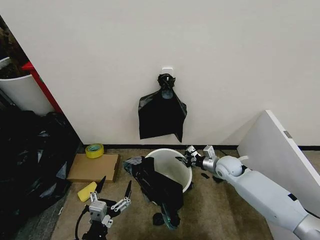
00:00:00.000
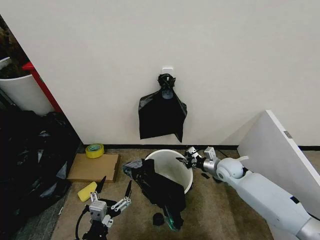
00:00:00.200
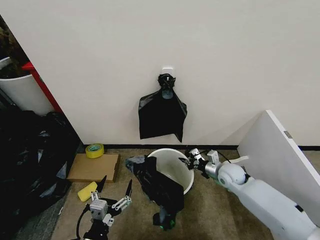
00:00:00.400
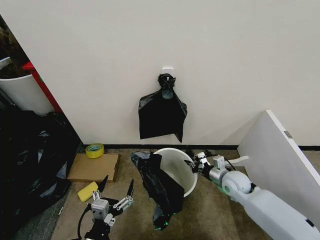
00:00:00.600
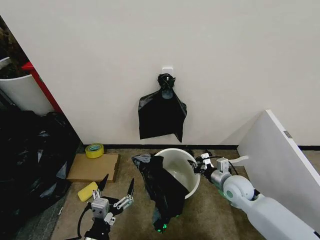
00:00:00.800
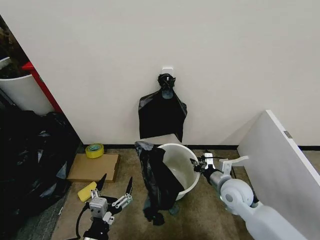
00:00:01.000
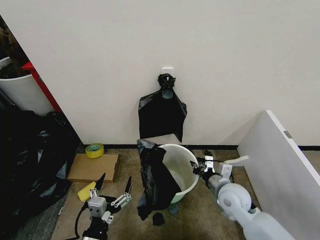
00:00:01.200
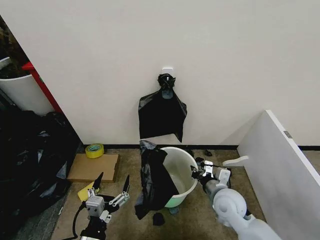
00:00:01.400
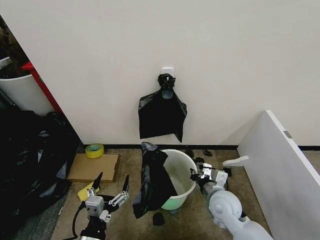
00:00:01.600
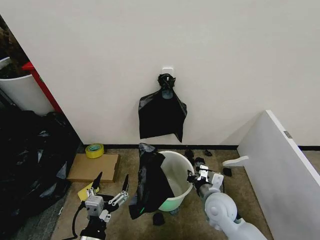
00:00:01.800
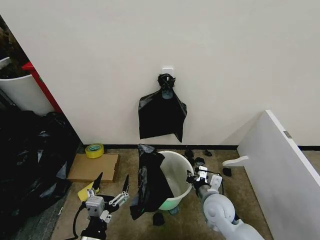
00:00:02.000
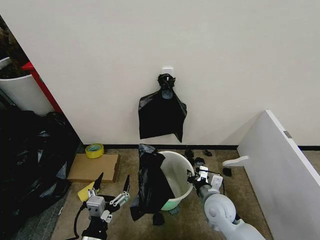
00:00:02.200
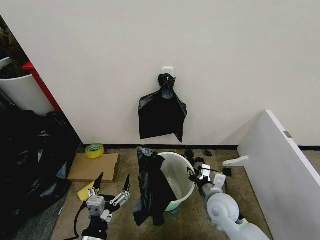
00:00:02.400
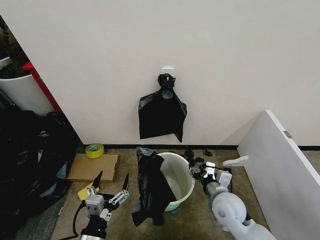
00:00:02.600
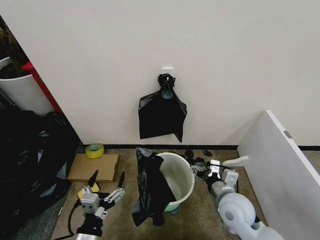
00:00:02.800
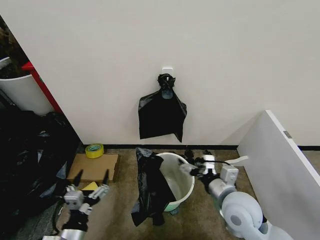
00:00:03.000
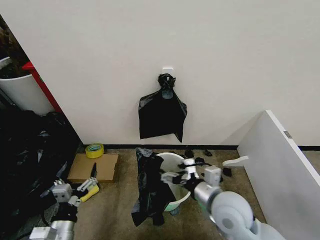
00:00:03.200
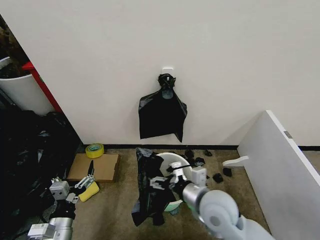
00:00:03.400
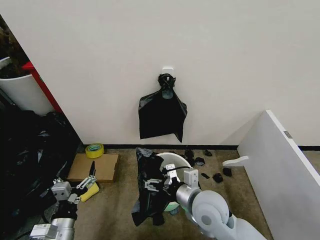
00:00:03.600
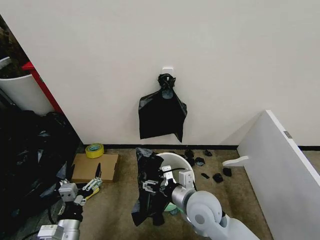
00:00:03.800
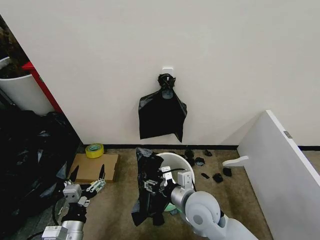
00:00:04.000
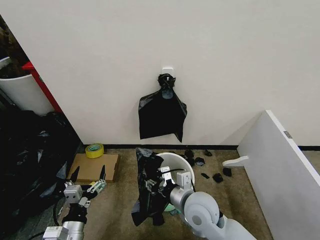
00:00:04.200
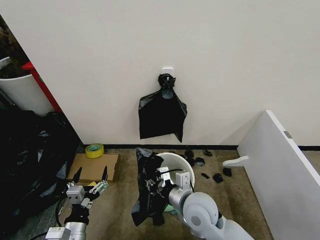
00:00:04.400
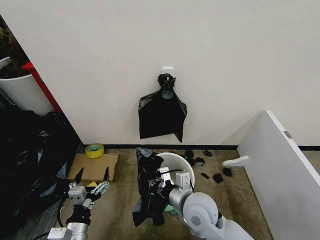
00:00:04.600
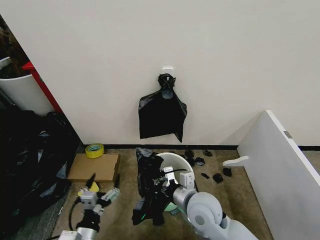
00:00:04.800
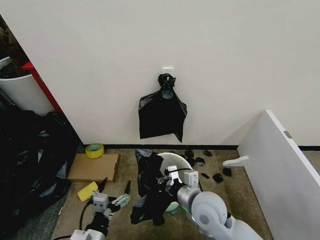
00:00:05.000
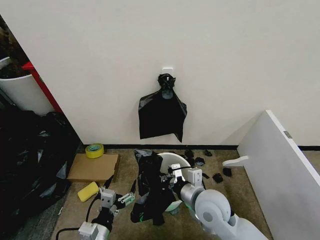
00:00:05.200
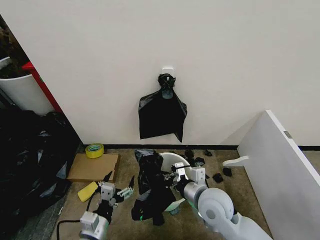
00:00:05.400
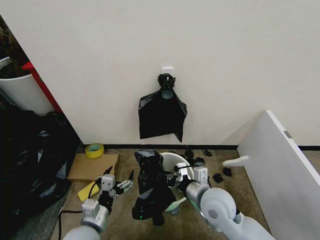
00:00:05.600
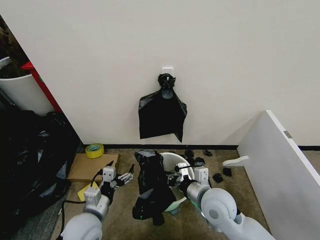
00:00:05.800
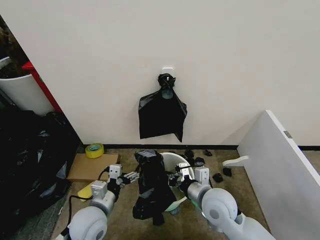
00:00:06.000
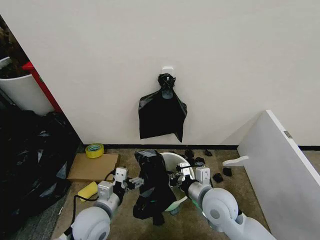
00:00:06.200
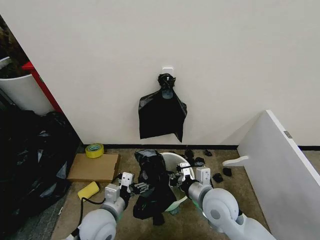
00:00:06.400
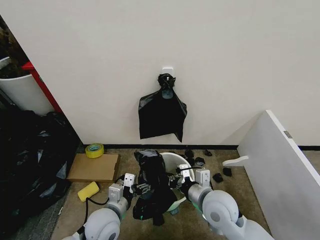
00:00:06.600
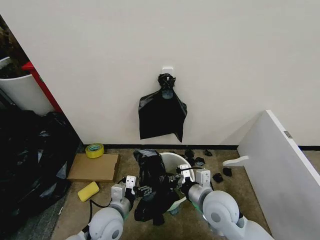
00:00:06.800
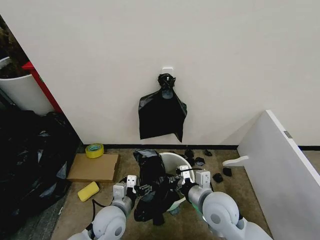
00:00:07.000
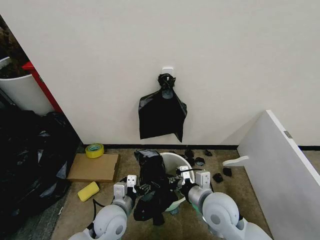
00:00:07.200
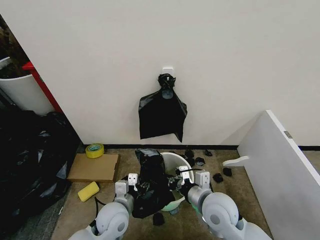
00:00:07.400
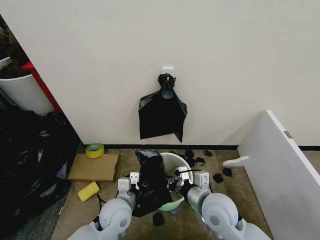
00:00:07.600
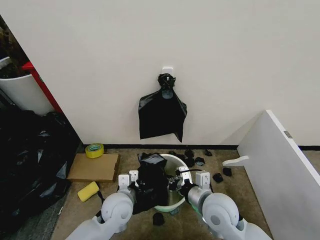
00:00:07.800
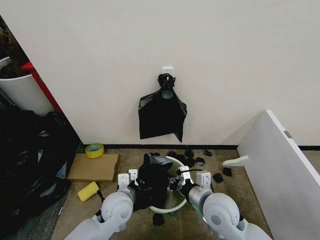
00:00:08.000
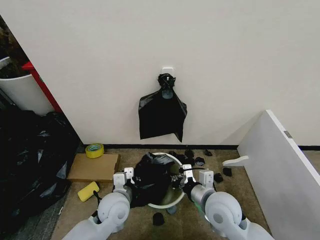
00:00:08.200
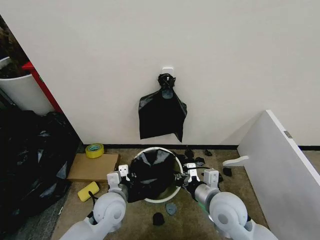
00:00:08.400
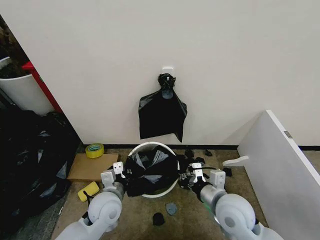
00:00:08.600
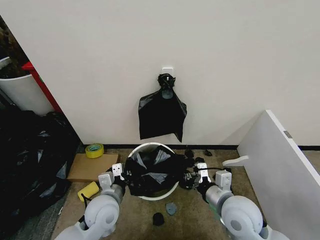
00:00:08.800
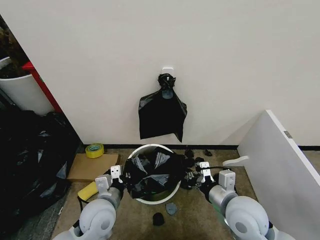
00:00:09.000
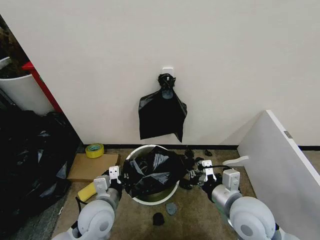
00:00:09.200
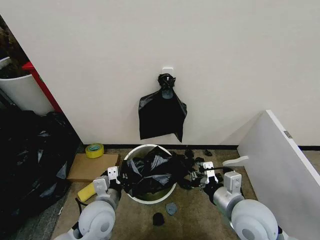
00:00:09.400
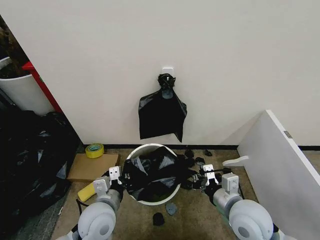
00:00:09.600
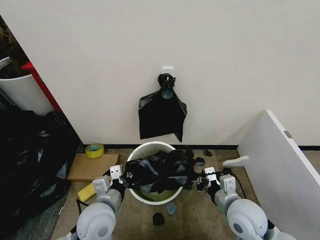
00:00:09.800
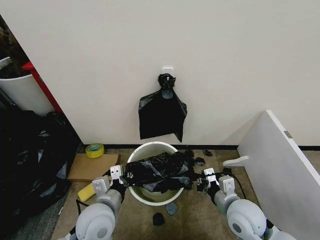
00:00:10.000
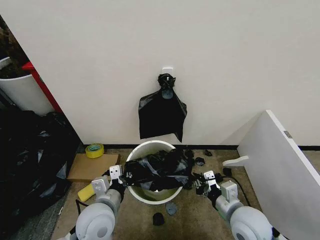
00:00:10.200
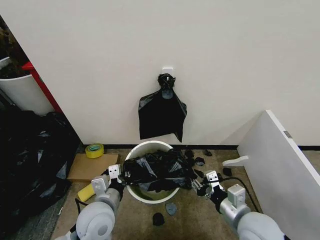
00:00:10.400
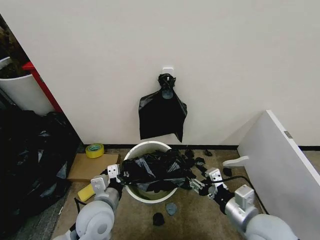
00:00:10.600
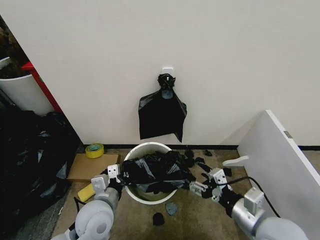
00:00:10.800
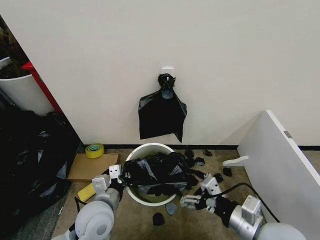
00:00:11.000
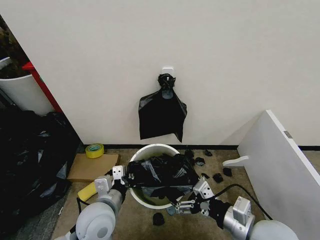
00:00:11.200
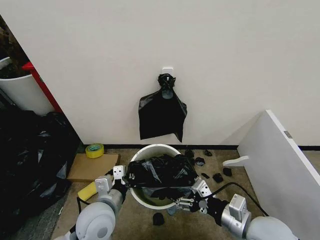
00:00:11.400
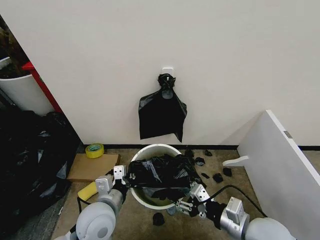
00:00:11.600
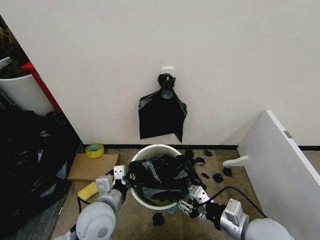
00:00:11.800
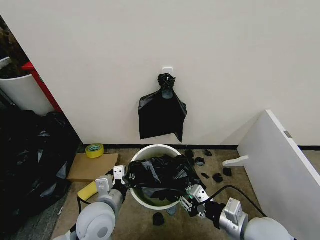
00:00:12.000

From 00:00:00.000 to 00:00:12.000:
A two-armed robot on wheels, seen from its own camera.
Task of the whole recording: Place the garbage bag over the trash bin.
From 00:00:00.000 to 00:00:01.600: The right gripper moves backward and to the left, approximately 15 cm.
From 00:00:01.600 to 00:00:03.000: The right gripper is displaced upward by roughly 10 cm, and opens up.
From 00:00:03.000 to 00:00:04.400: The right gripper is displaced to the left by some 10 cm, and closes.
From 00:00:04.400 to 00:00:06.000: The left gripper heads forward, covering approximately 10 cm. The right gripper heads to the right, covering approximately 5 cm.
From 00:00:06.000 to 00:00:07.600: The left gripper moves to the right, some 5 cm, and closes up.
From 00:00:07.600 to 00:00:09.000: The left gripper ends up roughly 5 cm from where it was, while the right gripper shifts approximately 5 cm to the right.
From 00:00:09.000 to 00:00:10.400: The right gripper changes place by about 5 cm.
From 00:00:10.400 to 00:00:12.000: The right gripper opens, then closes again.

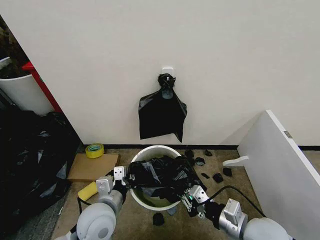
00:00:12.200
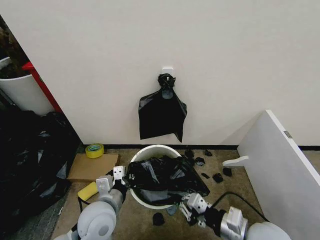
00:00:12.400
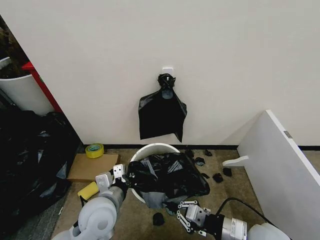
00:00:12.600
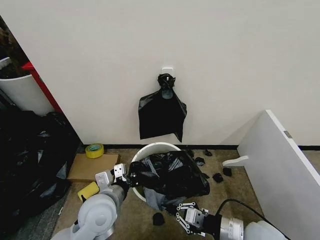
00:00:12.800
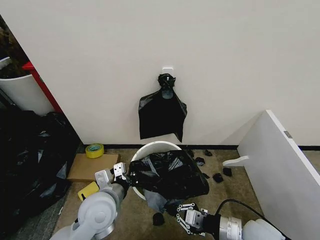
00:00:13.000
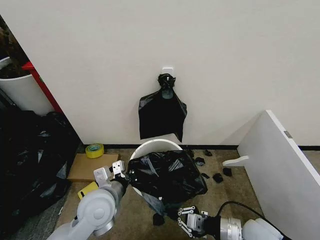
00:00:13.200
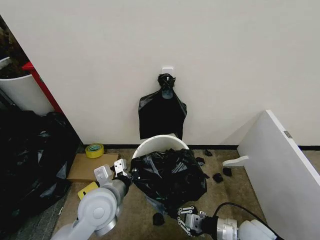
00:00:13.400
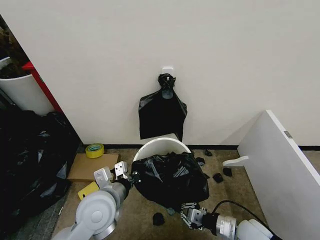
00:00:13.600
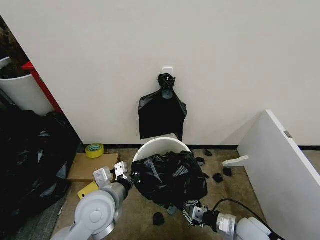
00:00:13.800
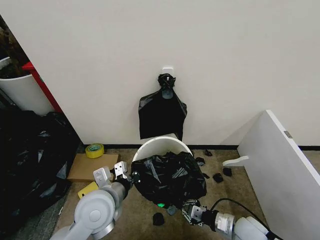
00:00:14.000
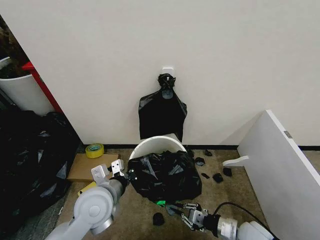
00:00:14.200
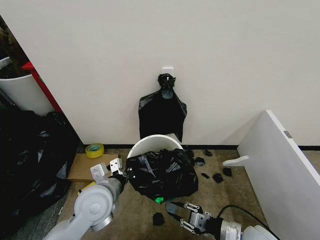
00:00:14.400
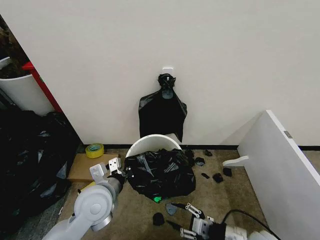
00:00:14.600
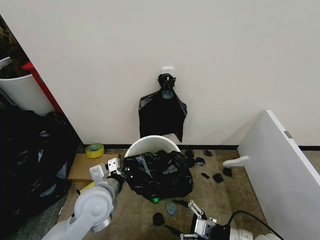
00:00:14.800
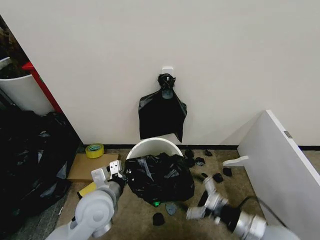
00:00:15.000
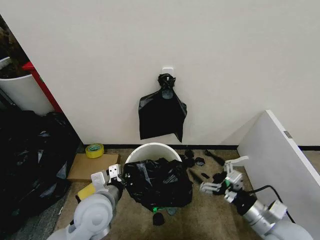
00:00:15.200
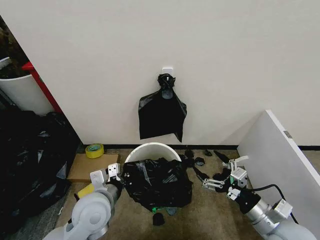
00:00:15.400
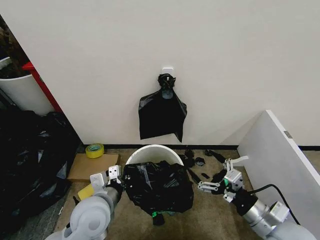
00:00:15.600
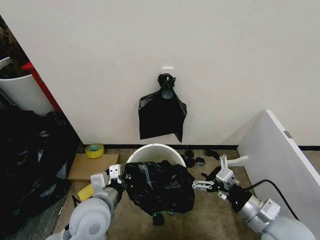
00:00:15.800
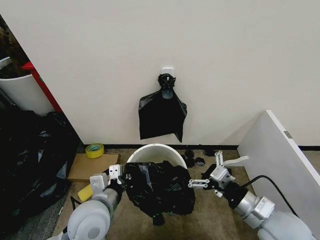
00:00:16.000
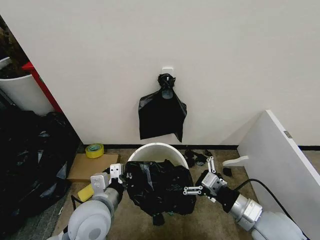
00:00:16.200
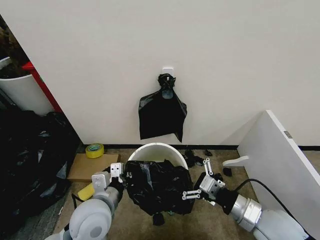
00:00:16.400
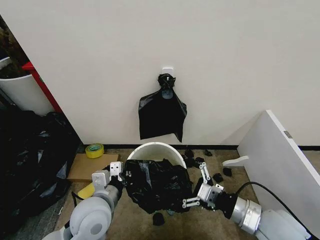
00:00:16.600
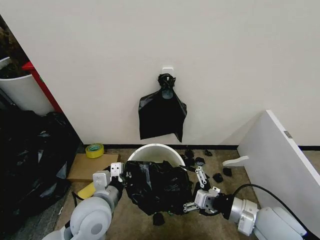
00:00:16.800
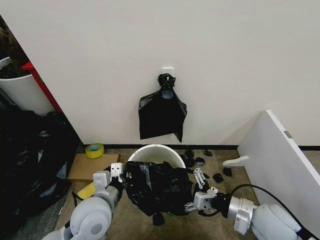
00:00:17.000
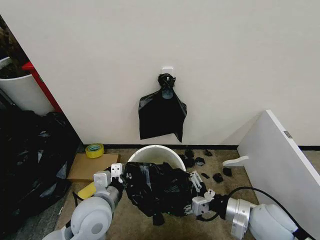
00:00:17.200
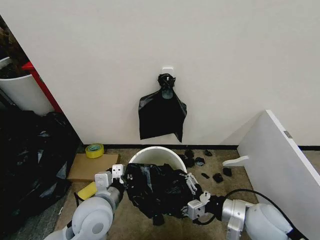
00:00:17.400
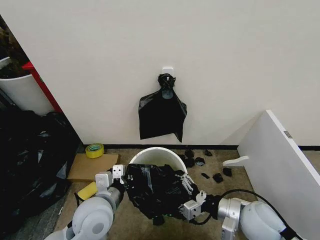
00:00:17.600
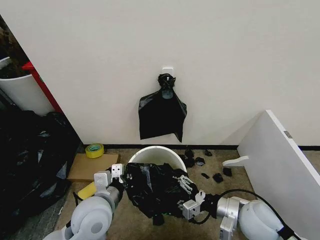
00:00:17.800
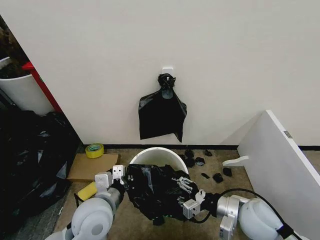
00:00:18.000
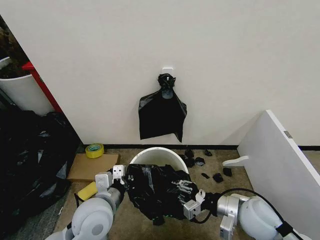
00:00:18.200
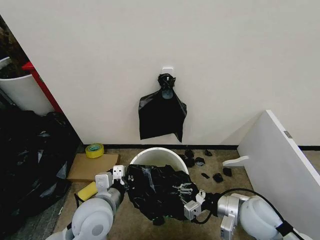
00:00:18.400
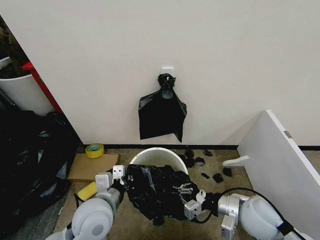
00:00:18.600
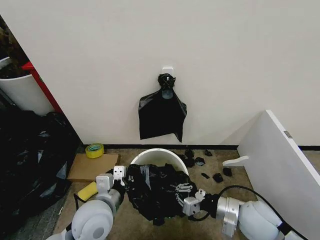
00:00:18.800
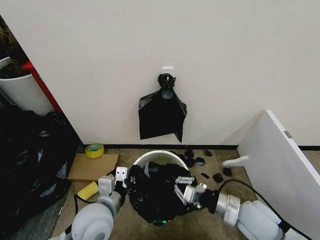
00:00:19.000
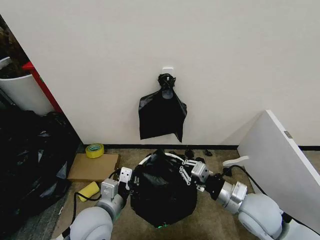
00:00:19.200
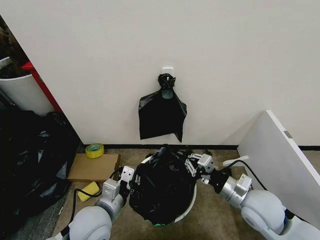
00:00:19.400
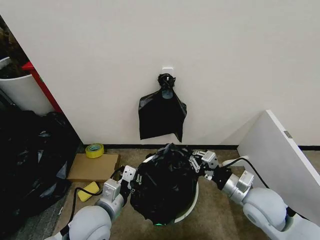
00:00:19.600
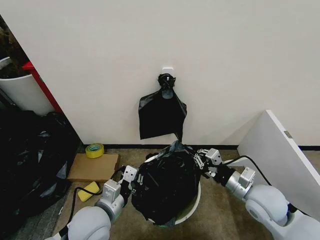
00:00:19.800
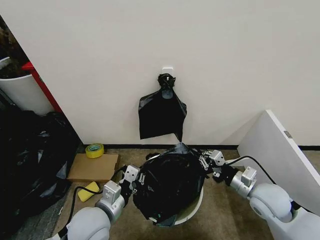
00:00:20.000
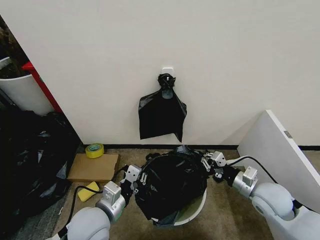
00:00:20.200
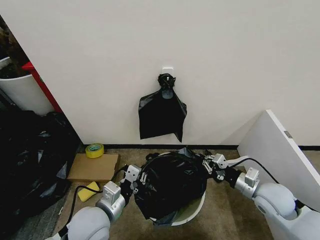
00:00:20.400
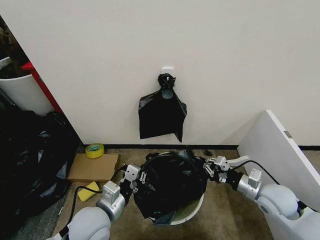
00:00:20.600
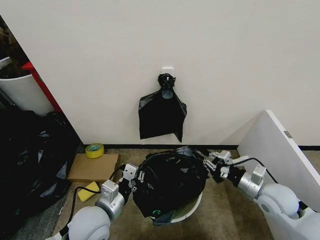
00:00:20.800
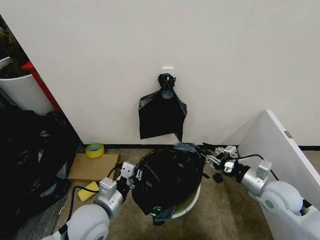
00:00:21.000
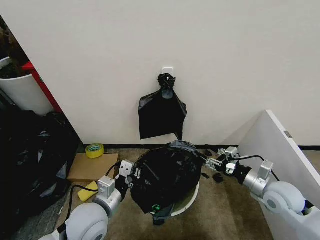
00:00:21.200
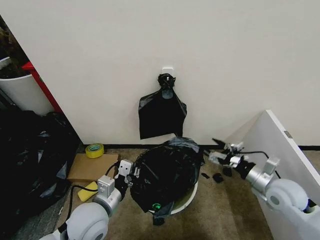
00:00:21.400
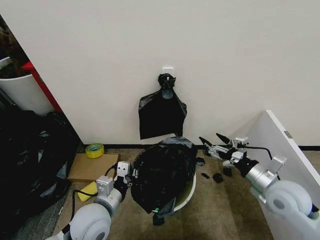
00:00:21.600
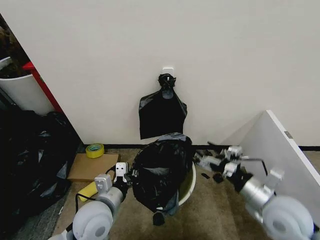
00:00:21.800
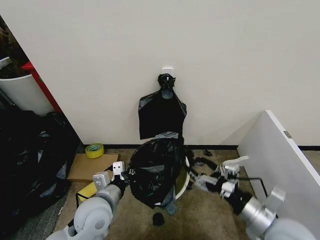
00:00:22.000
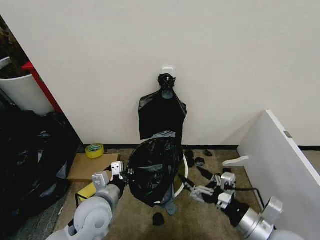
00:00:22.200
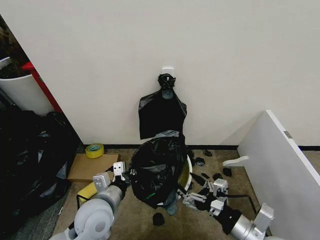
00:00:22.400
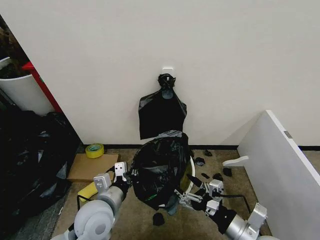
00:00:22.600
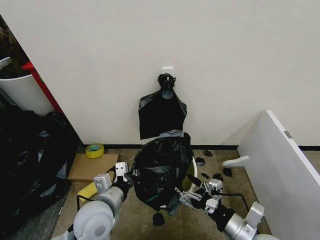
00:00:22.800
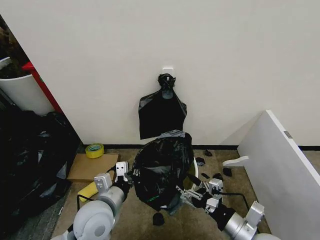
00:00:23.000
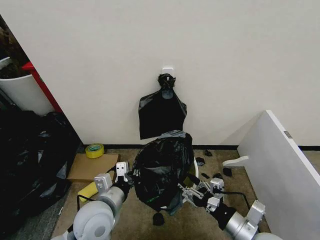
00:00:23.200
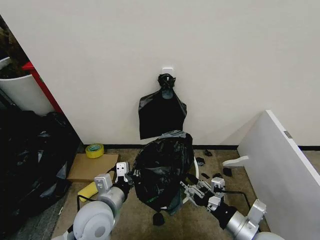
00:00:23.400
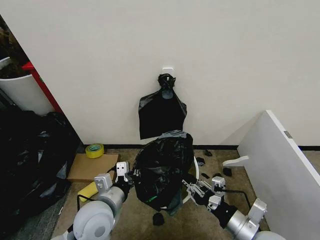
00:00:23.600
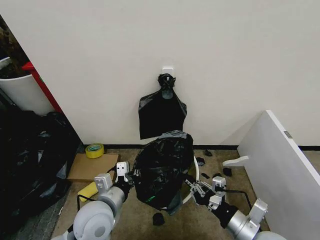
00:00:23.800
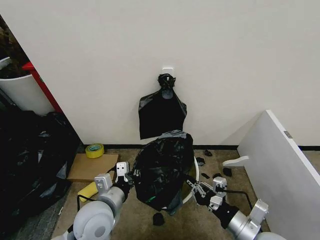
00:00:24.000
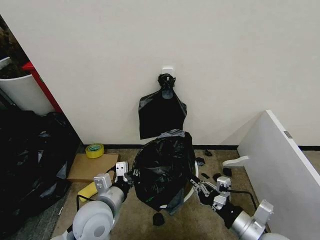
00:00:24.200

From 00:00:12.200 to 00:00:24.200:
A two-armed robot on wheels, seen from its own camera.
Task of the whole recording: Place the garbage bag over the trash bin.
From 00:00:12.200 to 00:00:13.800: The right gripper moves downward, about 15 cm.
From 00:00:13.800 to 00:00:15.200: The right gripper shifts roughly 10 cm upward, and opens its fingers.
From 00:00:16.600 to 00:00:18.200: The right gripper ends up approximately 5 cm from where it was, and closes up.
From 00:00:19.800 to 00:00:21.200: The right gripper travels to the right by some 5 cm, and opens up.
From 00:00:21.200 to 00:00:22.600: The right gripper travels backward and to the left by some 20 cm.
From 00:00:22.600 to 00:00:24.200: The right gripper closes up.
